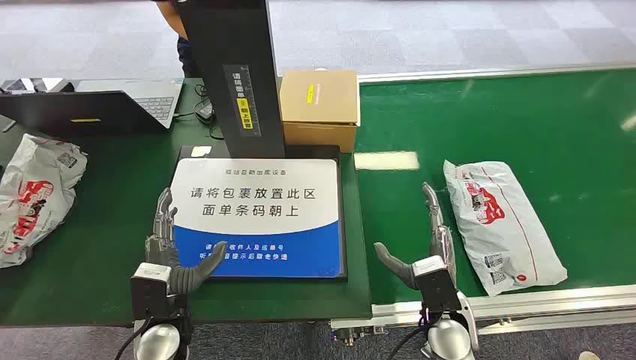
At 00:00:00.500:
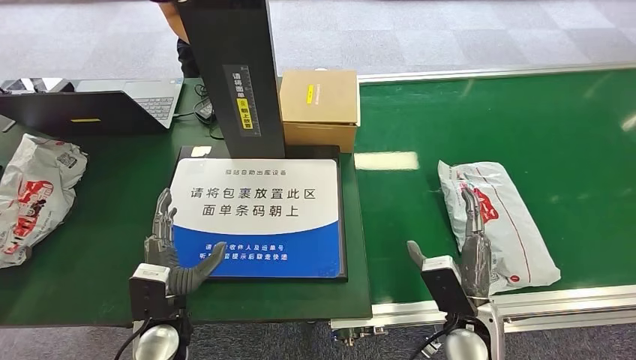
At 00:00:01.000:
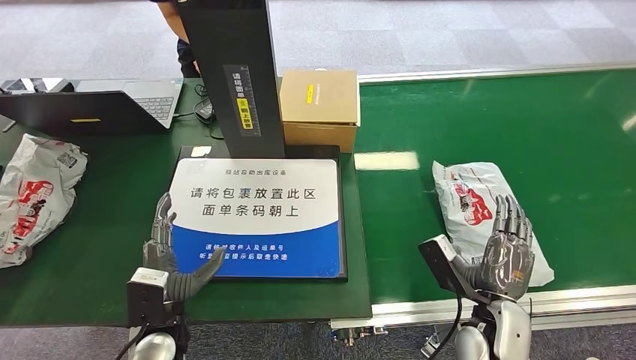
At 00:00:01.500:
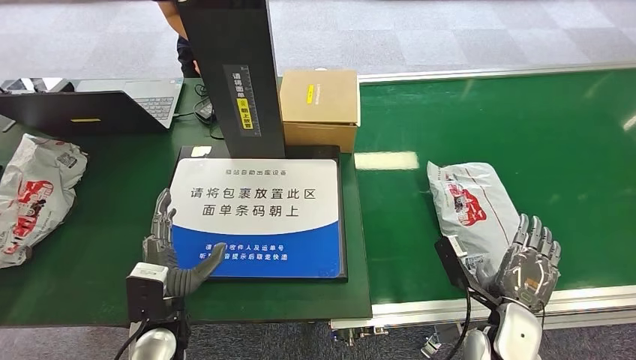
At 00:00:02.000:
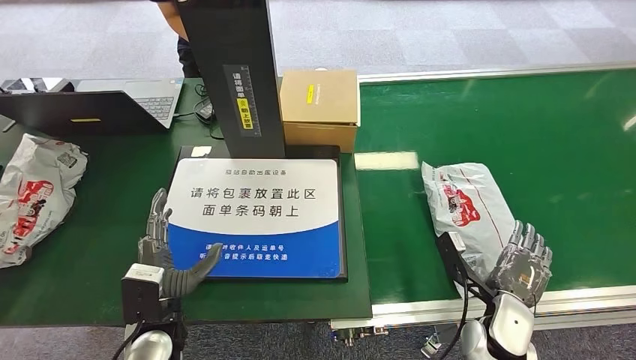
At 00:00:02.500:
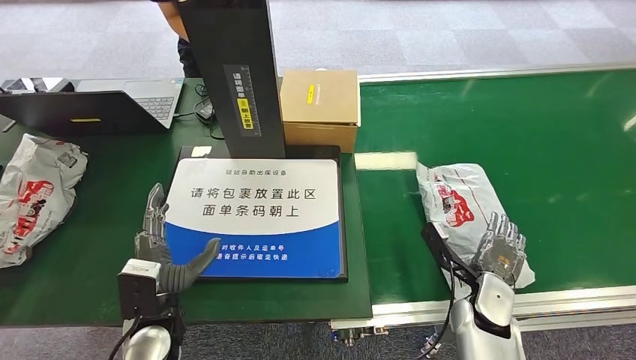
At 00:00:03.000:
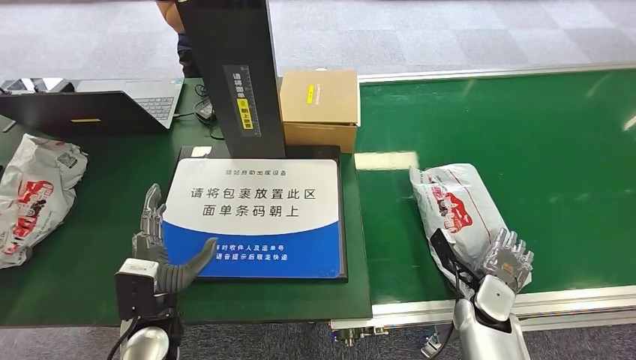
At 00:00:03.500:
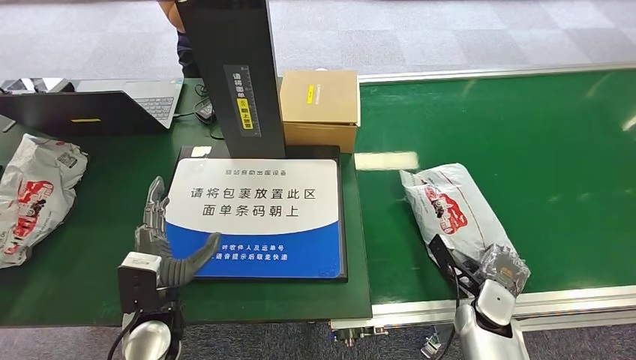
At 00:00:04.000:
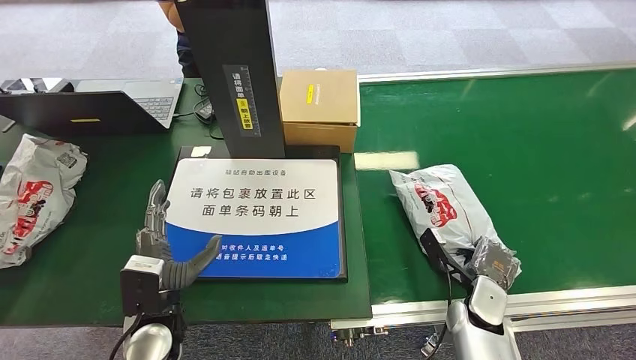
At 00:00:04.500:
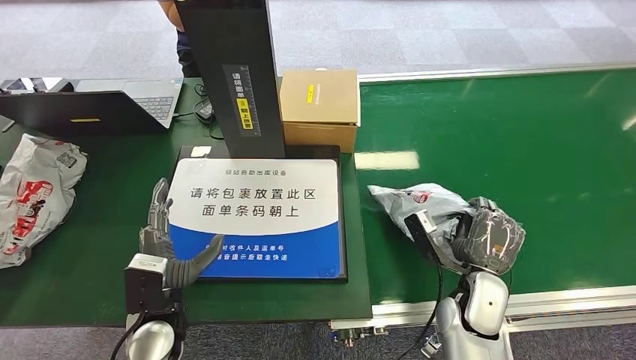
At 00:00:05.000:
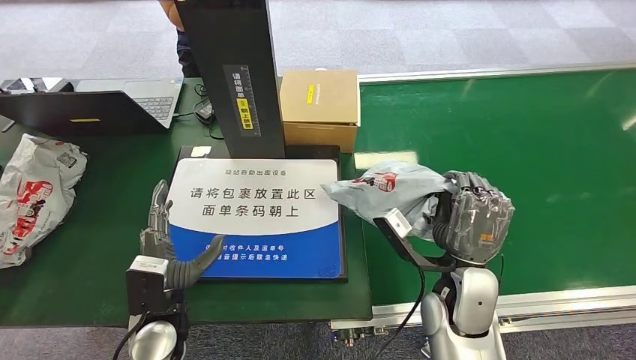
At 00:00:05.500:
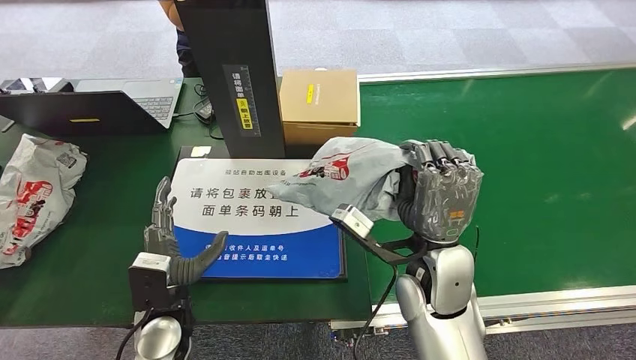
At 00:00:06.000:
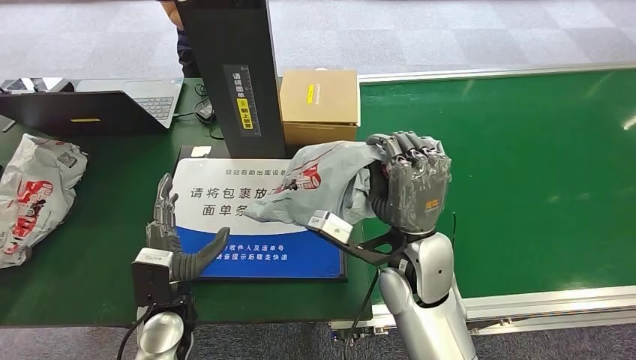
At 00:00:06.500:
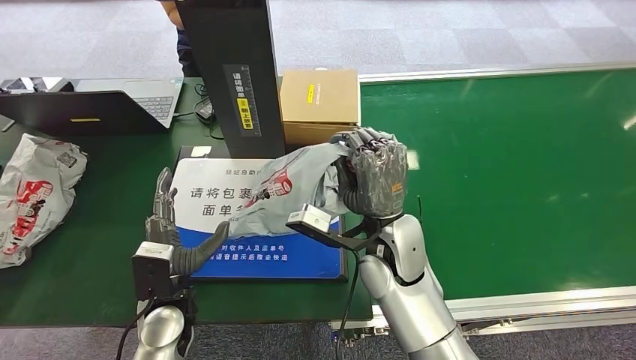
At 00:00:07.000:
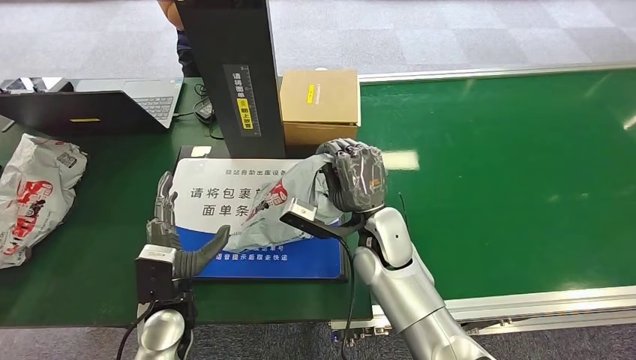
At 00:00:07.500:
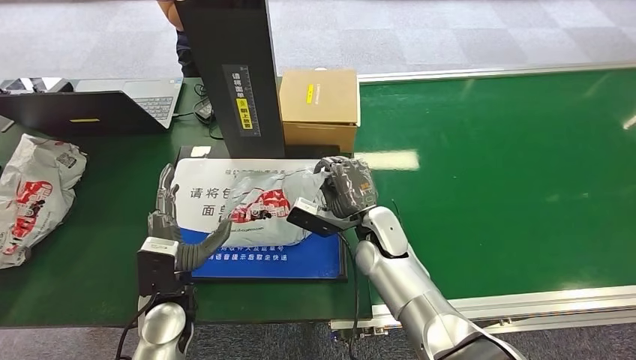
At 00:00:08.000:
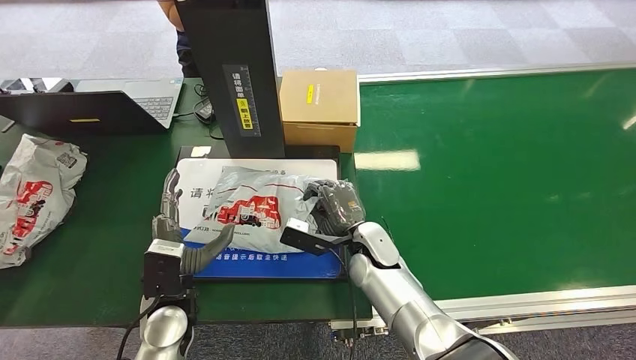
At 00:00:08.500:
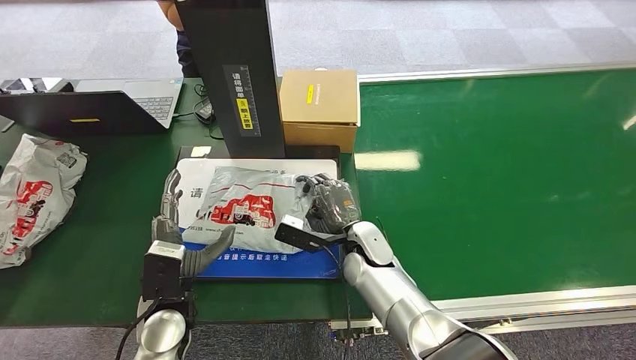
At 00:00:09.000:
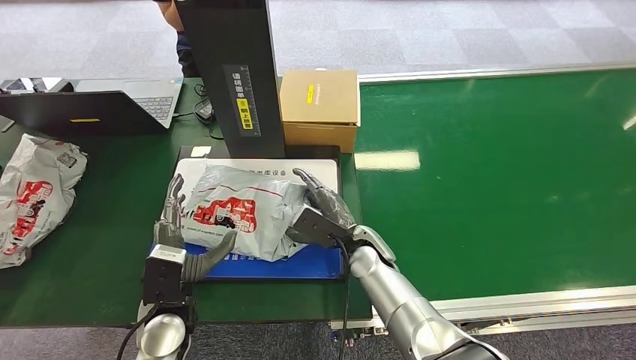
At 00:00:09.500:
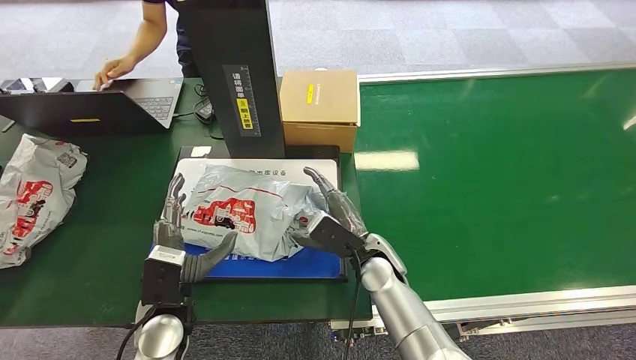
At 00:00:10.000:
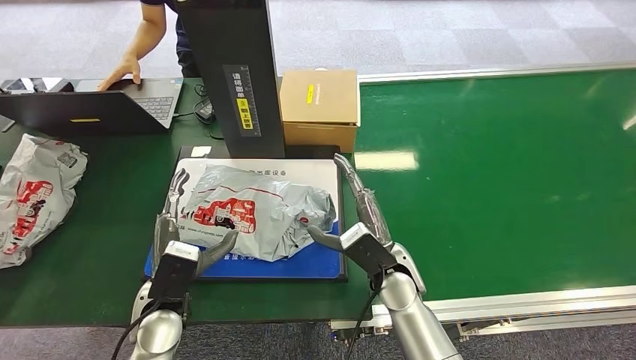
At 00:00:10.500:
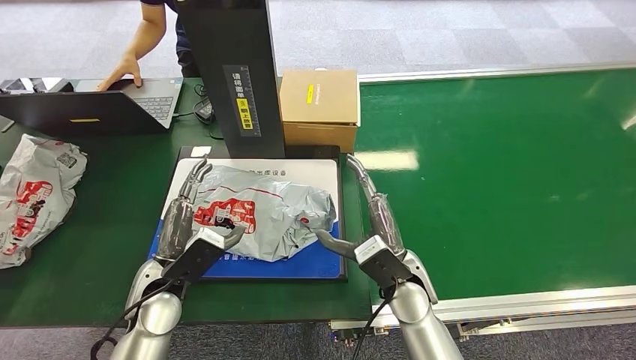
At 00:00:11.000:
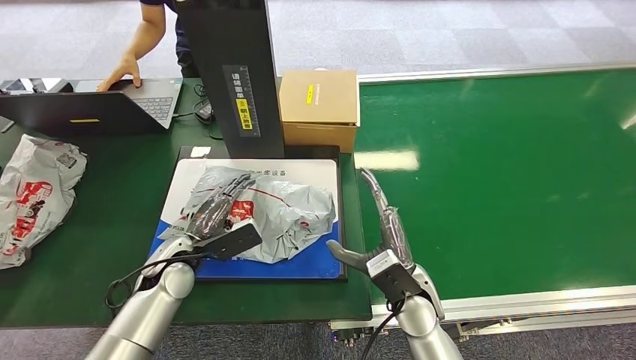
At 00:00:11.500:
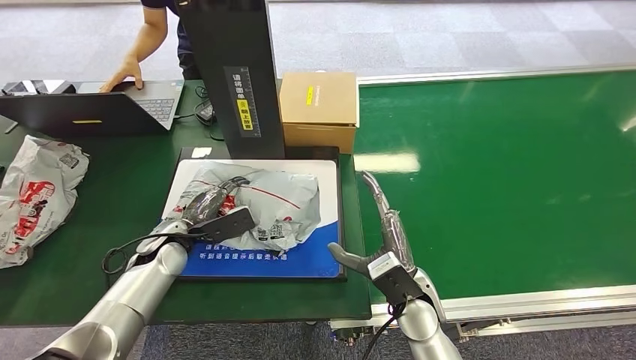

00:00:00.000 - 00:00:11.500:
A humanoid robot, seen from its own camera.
Task of the whole recording: Weigh the package on the weighing device and place it in the left basket.
Step, 00:00:00.000 - 00:00:05.000: Pick up the package from the conveyor belt.
Step, 00:00:05.500 - 00:00:10.000: Place the package onto the inbound machine.
00:00:02.000 - 00:00:04.000: The right hand moves some 5 cm.
00:00:04.000 - 00:00:06.000: The right hand is displaced upward and to the left by about 25 cm.
00:00:06.000 - 00:00:07.500: The right hand is displaced downward and forward by about 15 cm.
00:00:07.500 - 00:00:09.500: The right hand moves about 5 cm.
00:00:09.500 - 00:00:11.500: The left hand travels forward and to the left by some 15 cm; the right hand heads backward and to the right, covering approximately 10 cm.

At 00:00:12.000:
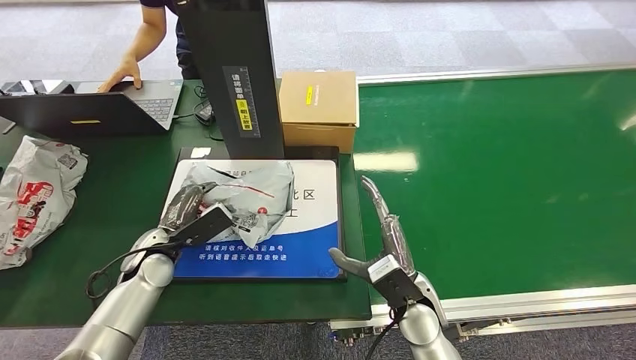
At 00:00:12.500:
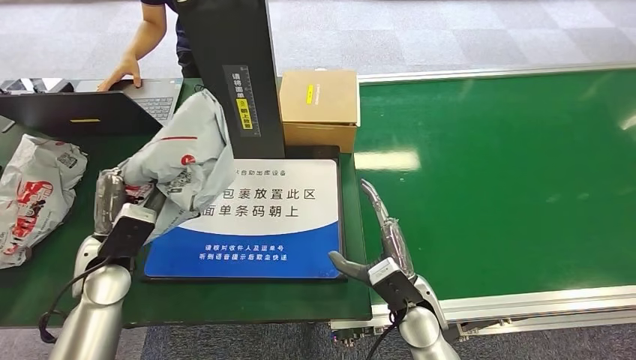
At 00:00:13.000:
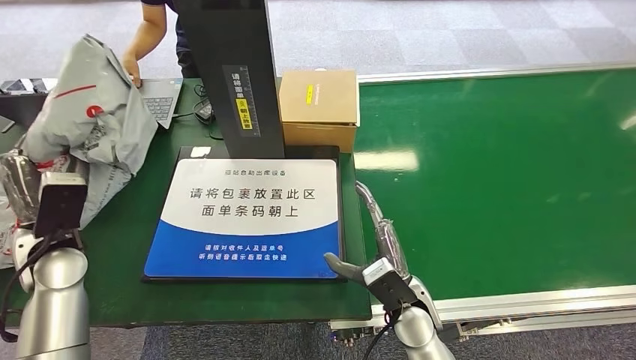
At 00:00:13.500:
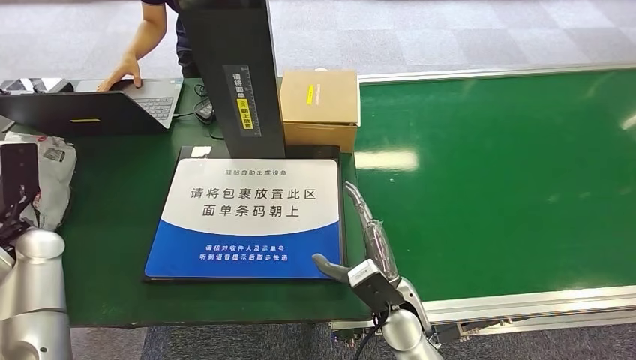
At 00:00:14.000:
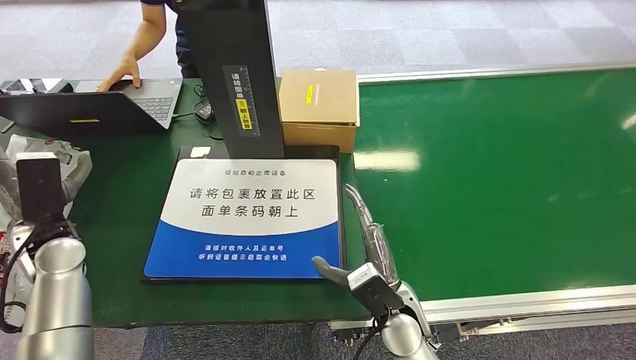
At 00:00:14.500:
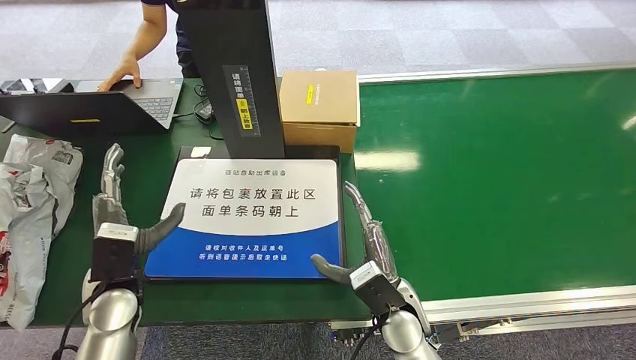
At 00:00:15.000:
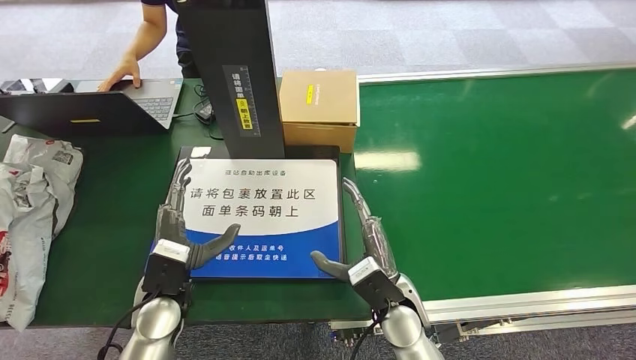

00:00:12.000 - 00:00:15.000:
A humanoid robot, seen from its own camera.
Task of the whole recording: Weigh the package on the weighing device and place it in the left basket.
Step, 00:00:13.000 - 00:00:15.000: Place the package into the parcel locker.
00:00:12.000 - 00:00:13.500: The left hand heads to the left and upward, covering approximately 20 cm.
00:00:13.500 - 00:00:15.000: The left hand travels to the right by about 25 cm.

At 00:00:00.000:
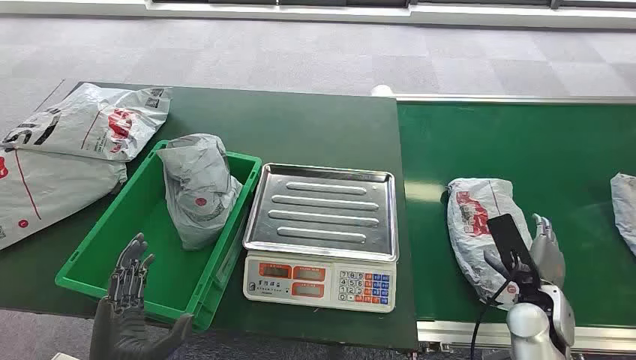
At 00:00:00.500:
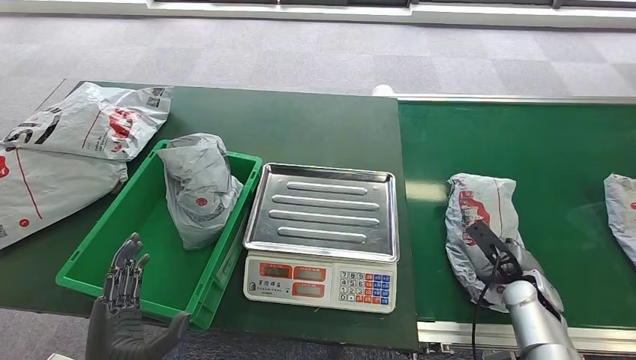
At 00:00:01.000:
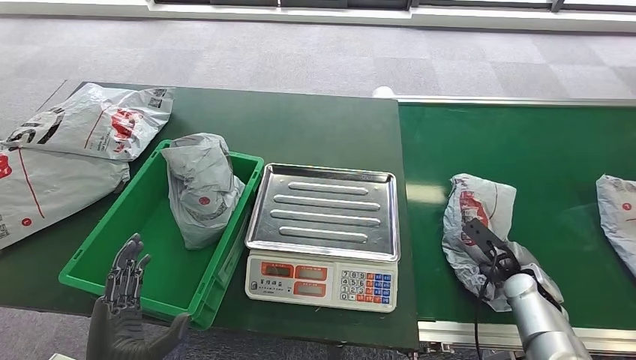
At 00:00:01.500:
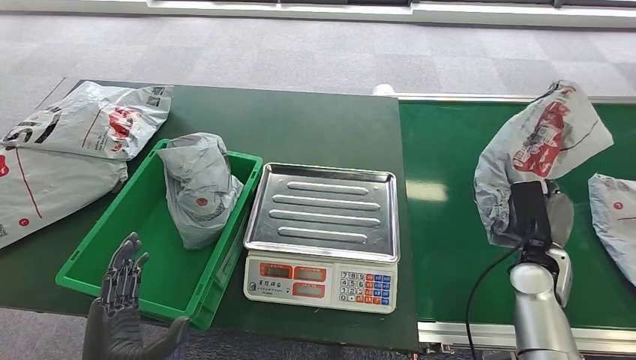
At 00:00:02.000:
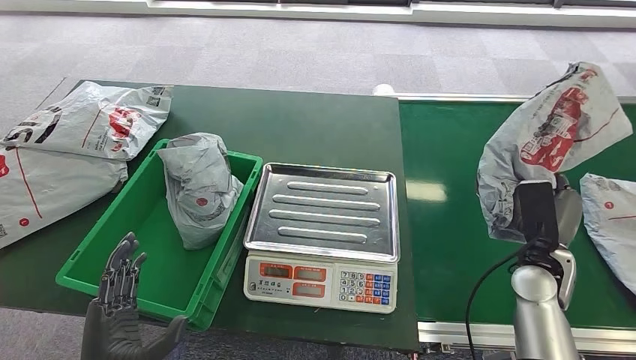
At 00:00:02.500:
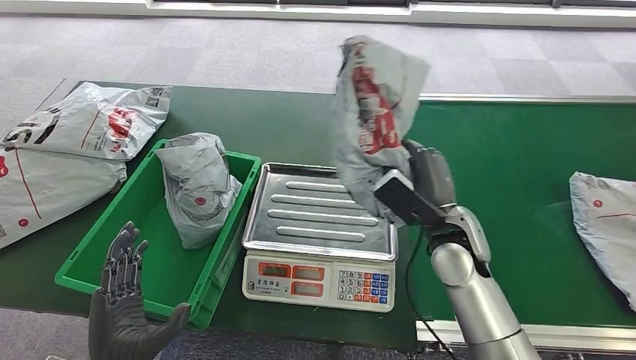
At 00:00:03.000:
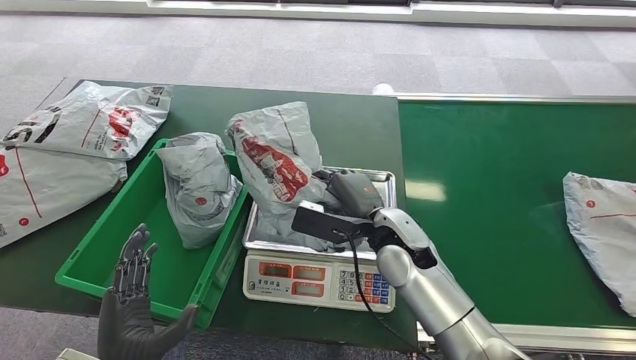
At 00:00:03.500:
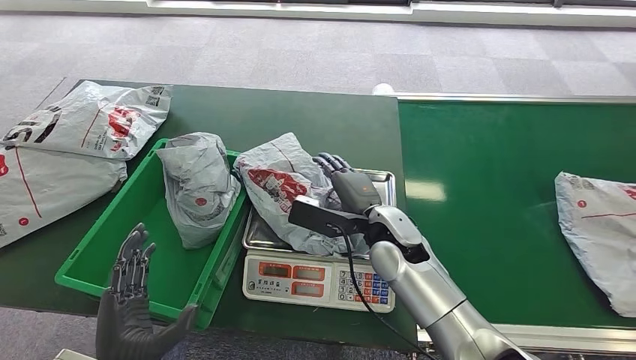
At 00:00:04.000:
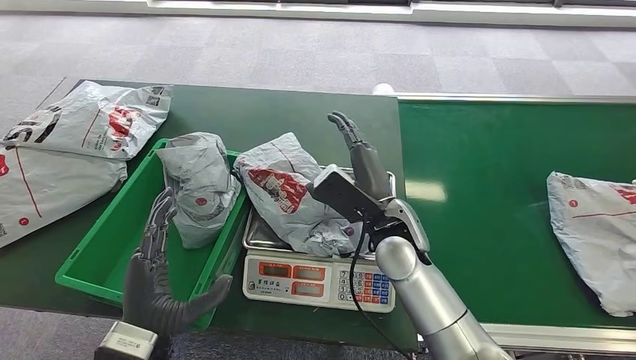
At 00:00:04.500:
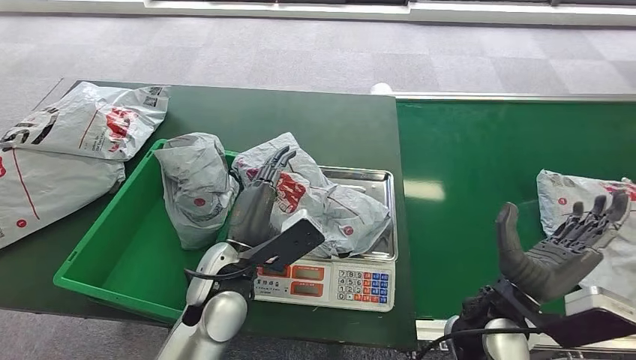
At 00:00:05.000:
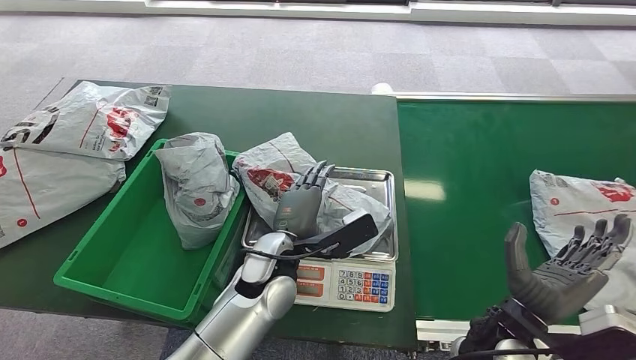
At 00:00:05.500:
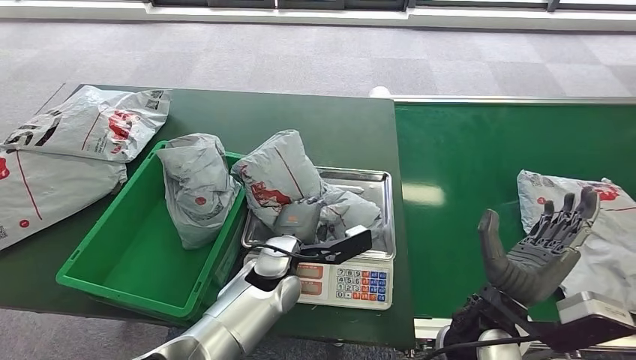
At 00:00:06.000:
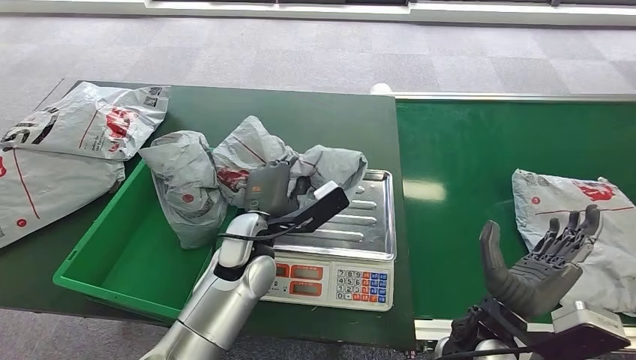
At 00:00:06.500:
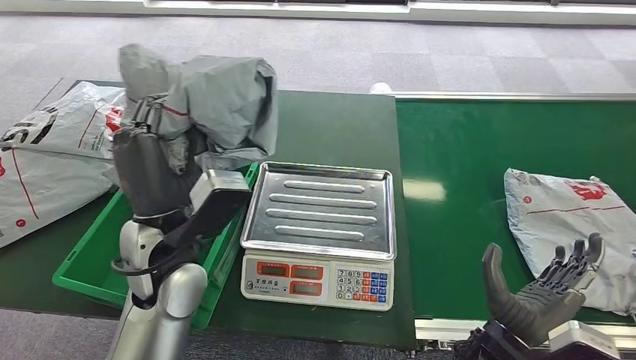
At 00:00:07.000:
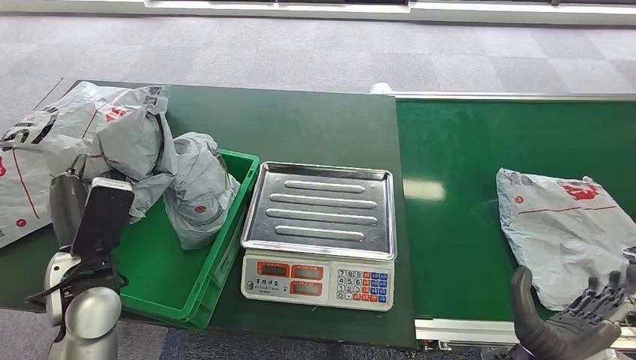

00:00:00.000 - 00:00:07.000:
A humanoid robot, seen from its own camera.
Task of the whole recording: Weigh the package on the weighing device and place it in the left basket.
Step, 00:00:00.000 - 00:00:01.500: Pick up the package from the conveyor belt.
Step, 00:00:02.000 - 00:00:03.500: Place the package onto the inbound machine.
Step, 00:00:04.000 - 00:00:06.000: Pick up the package from the inbound machine.
